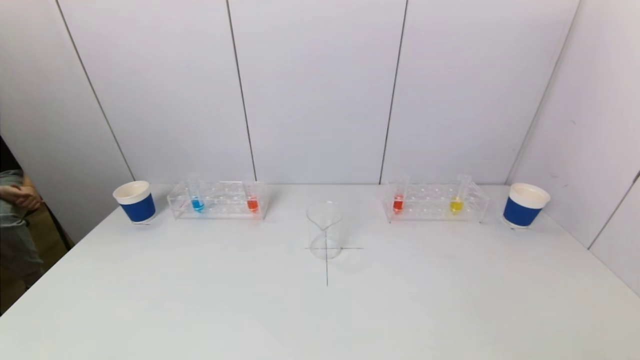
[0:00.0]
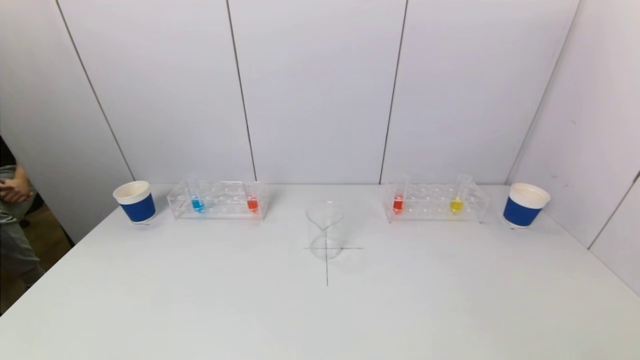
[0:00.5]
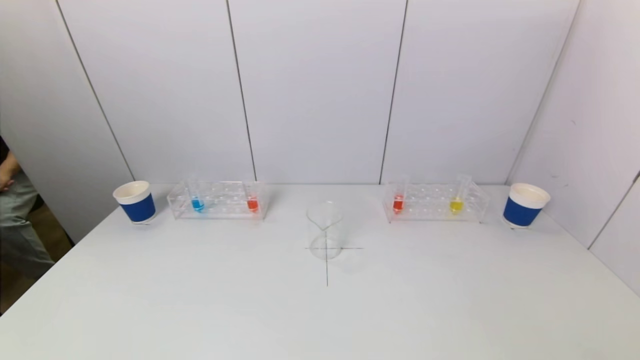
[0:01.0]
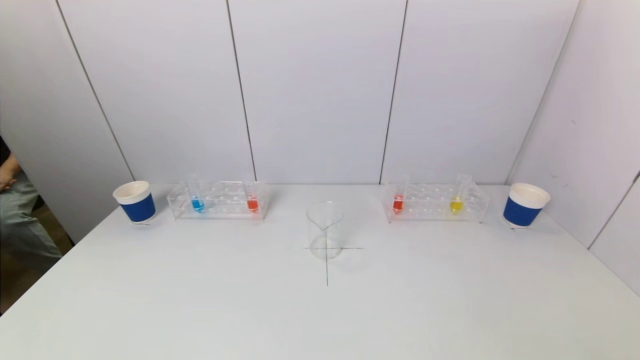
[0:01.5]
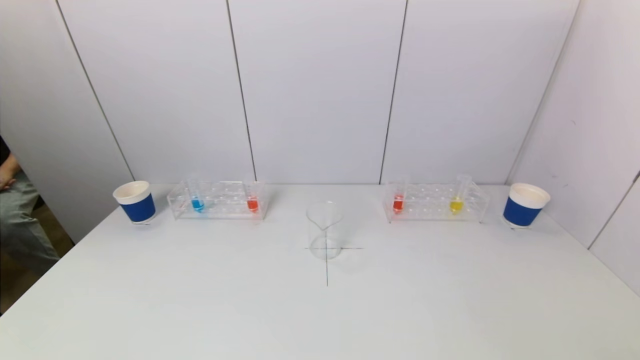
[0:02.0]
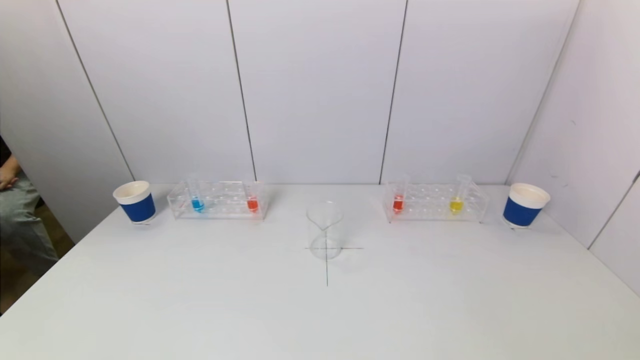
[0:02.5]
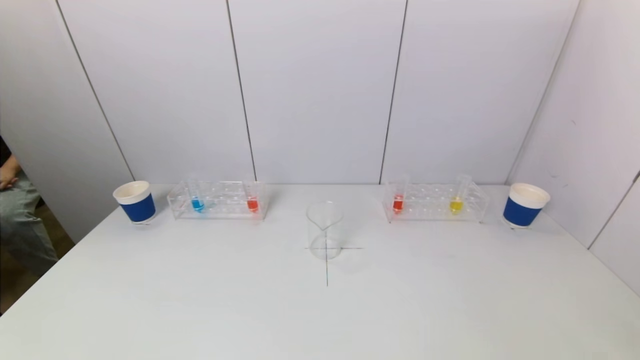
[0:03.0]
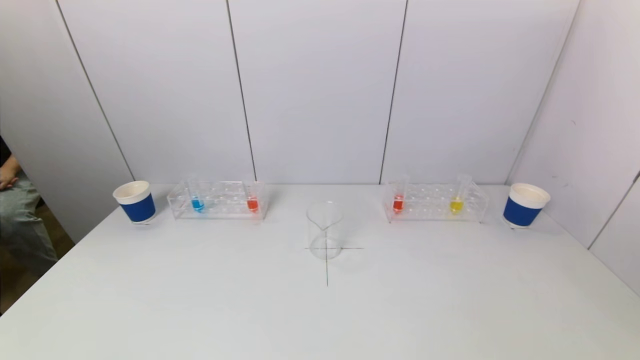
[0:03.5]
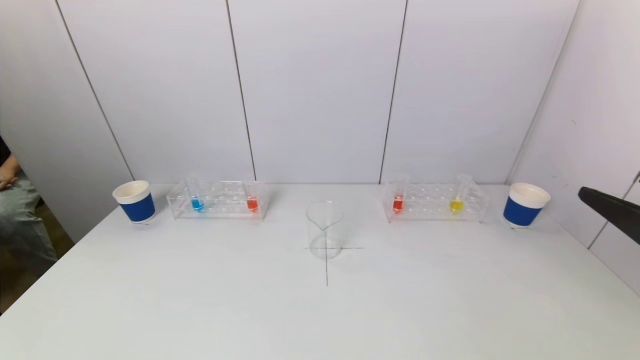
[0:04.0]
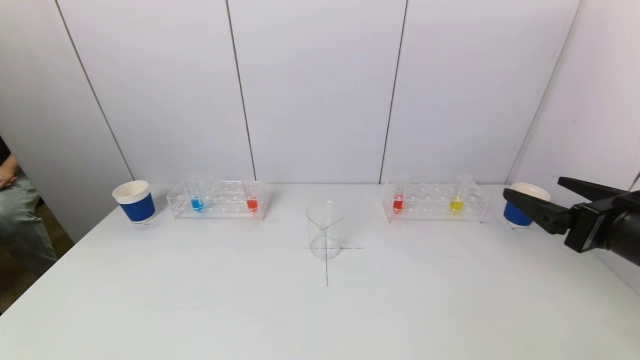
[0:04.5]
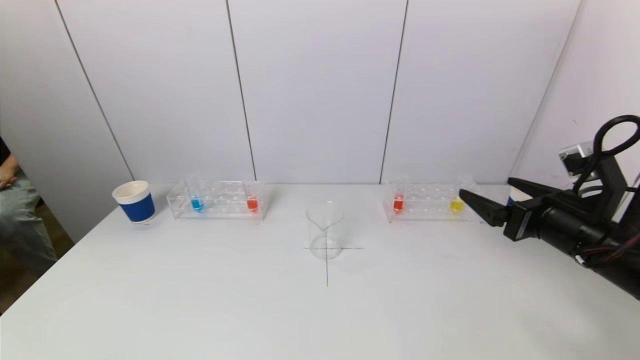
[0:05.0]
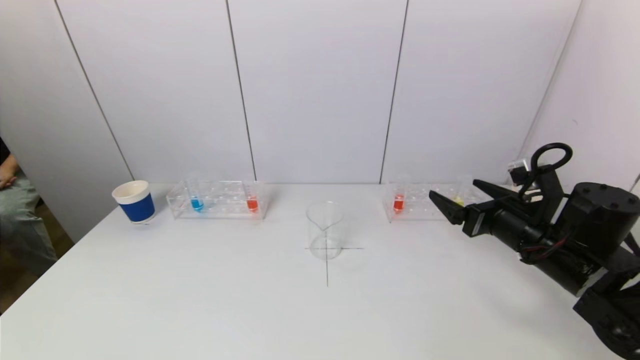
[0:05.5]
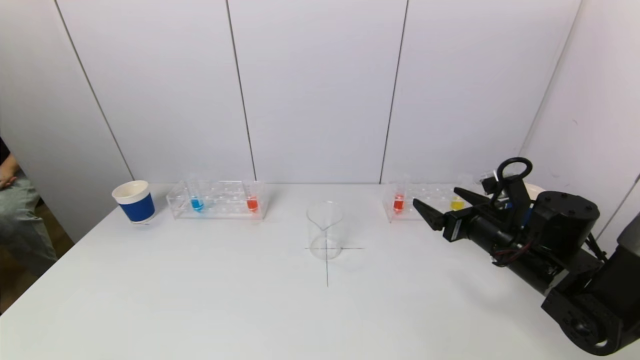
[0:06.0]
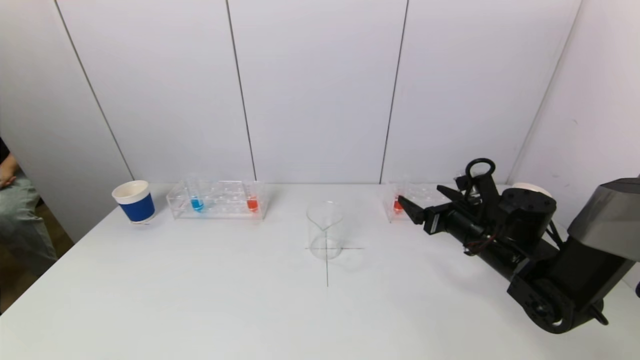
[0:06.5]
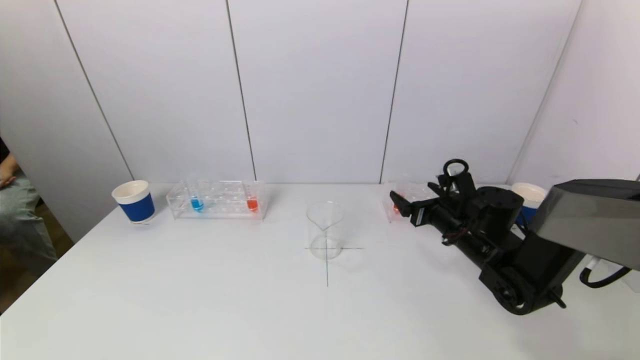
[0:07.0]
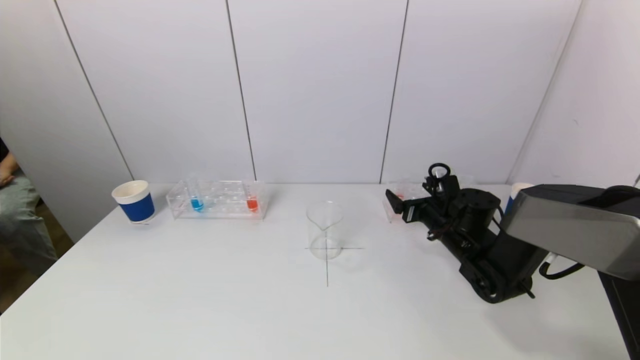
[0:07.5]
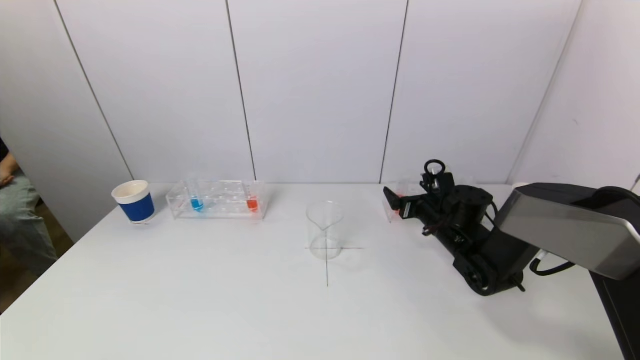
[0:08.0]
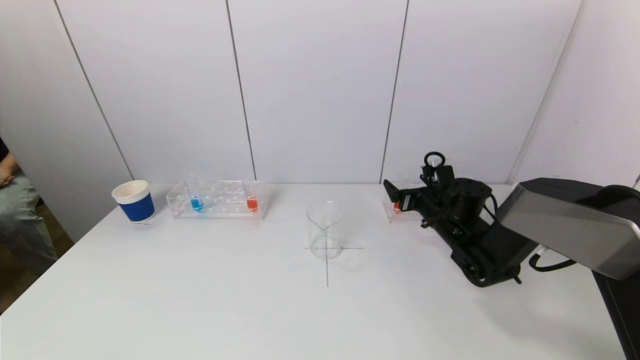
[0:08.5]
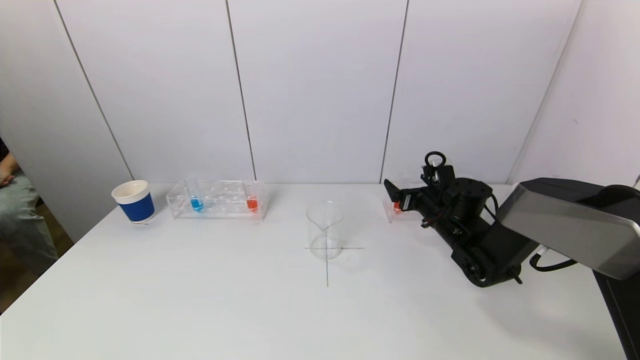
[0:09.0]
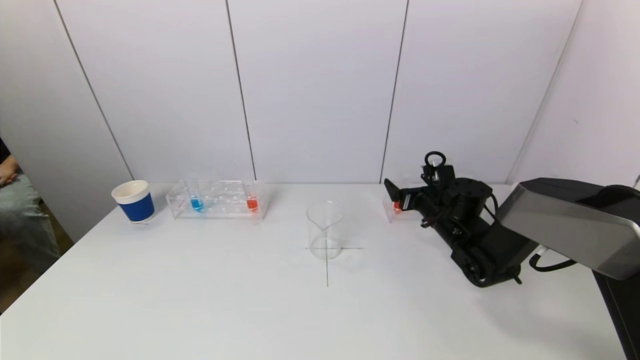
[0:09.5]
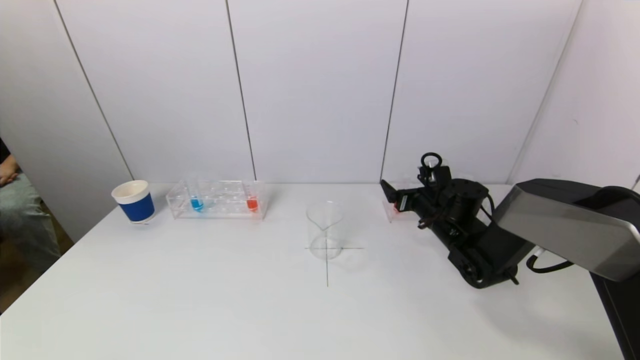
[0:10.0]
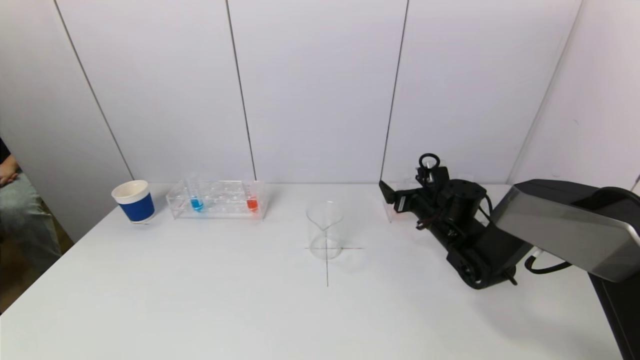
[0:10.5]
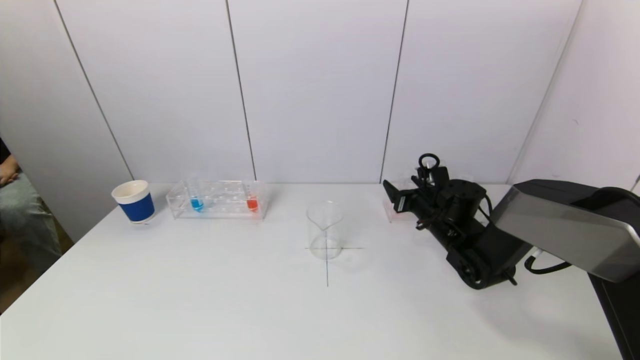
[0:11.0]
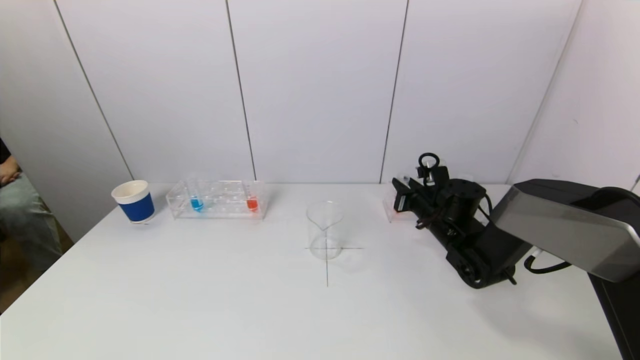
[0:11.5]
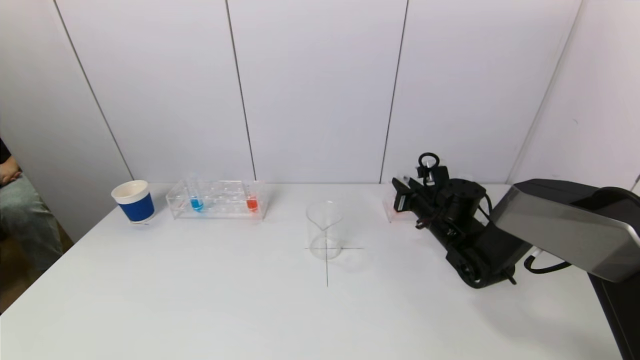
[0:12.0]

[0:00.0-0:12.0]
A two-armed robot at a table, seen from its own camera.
Task of the whole recording: pick up a test tube with pigment on left test tube rack and a test tube with pigment on right test tube rack by grippers and pour them into the beaker.
Step, 0:00.0 to 0:11.5: Grasp the red reagent with the right gripper.
0:02.0 to 0:04.0: The right gripper shifts approximately 20 cm forward and upward.
0:04.0 to 0:06.0: The right gripper moves forward and downward, approximately 25 cm.
0:06.0 to 0:08.0: The right gripper travels forward and downward by about 15 cm.
0:08.0 to 0:10.0: The grippers stay close to where they were, moving slightly.
0:10.0 to 0:12.0: The right gripper closes up.

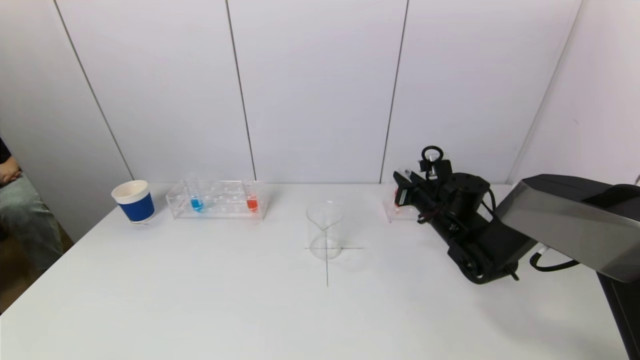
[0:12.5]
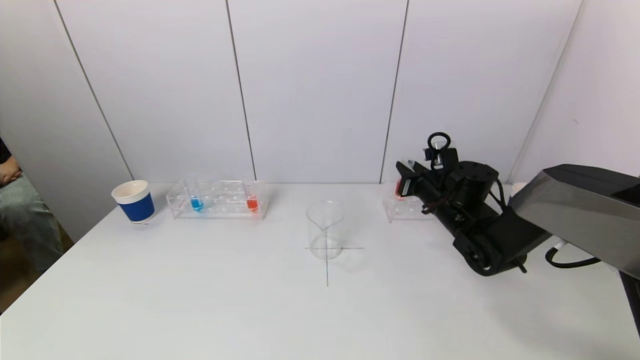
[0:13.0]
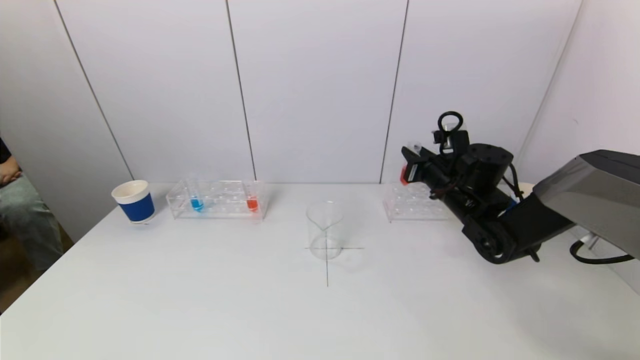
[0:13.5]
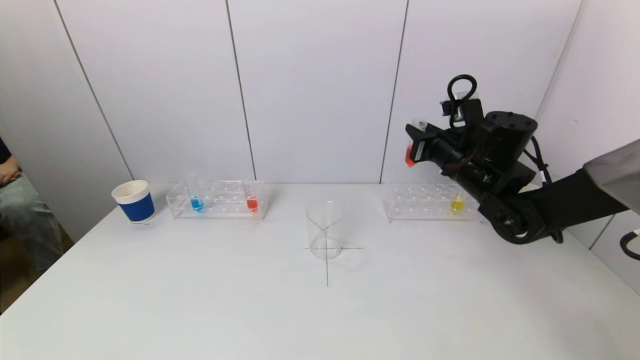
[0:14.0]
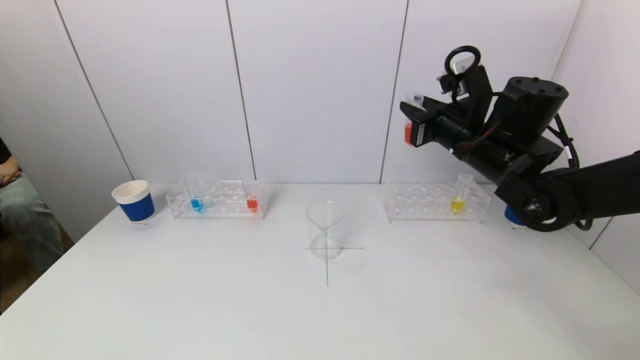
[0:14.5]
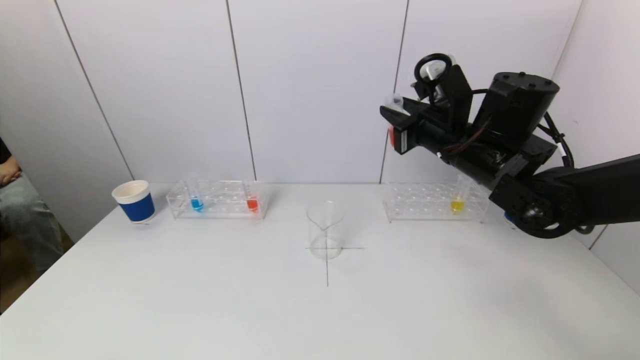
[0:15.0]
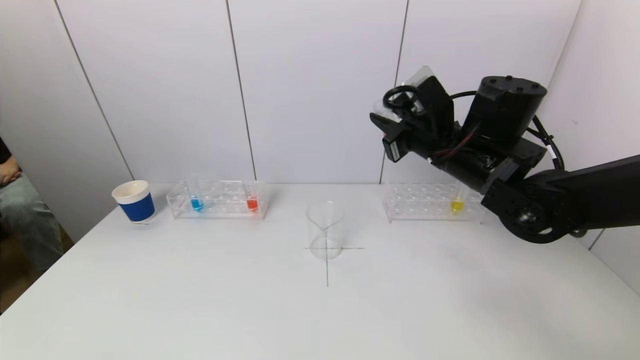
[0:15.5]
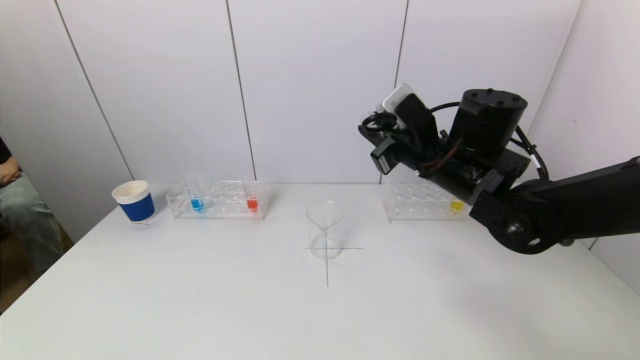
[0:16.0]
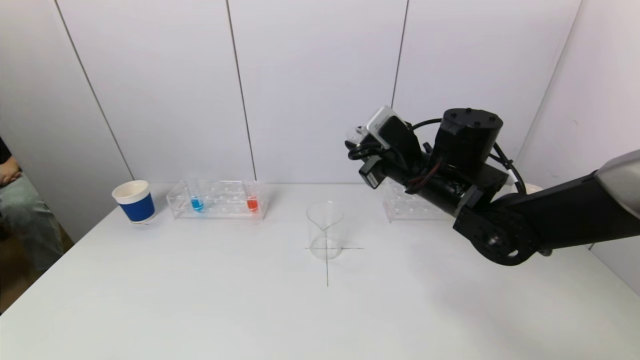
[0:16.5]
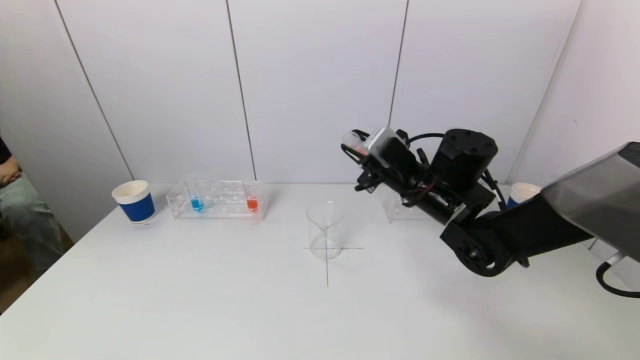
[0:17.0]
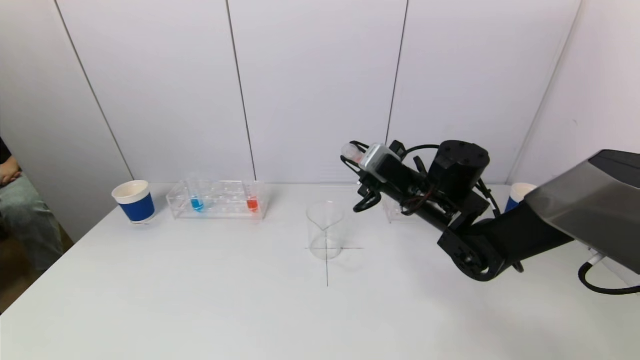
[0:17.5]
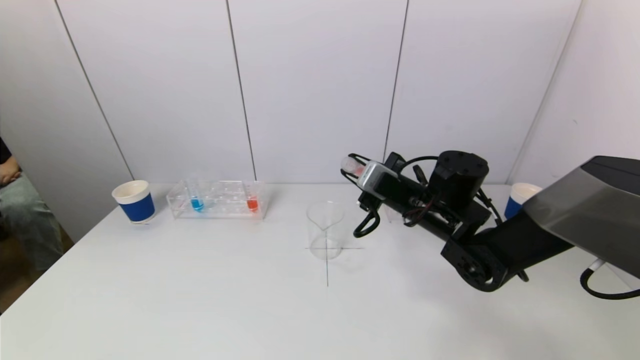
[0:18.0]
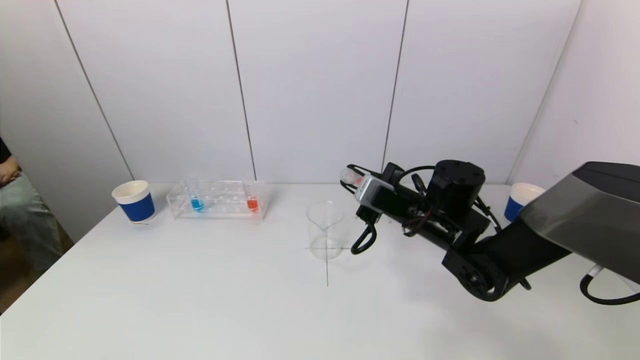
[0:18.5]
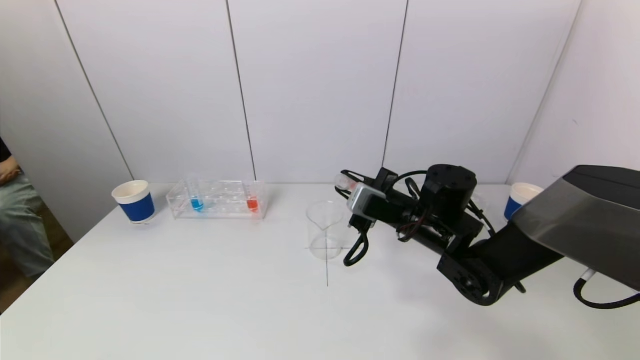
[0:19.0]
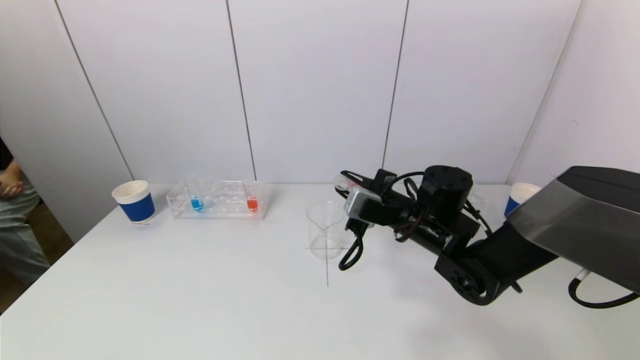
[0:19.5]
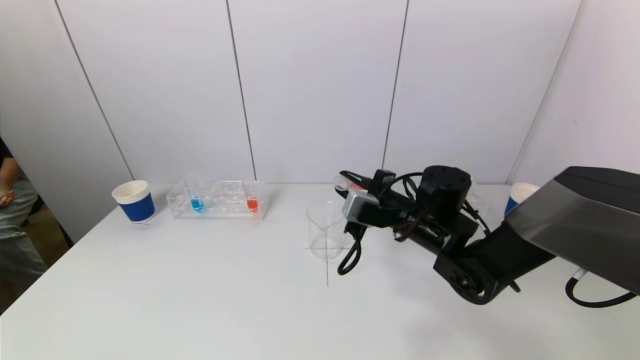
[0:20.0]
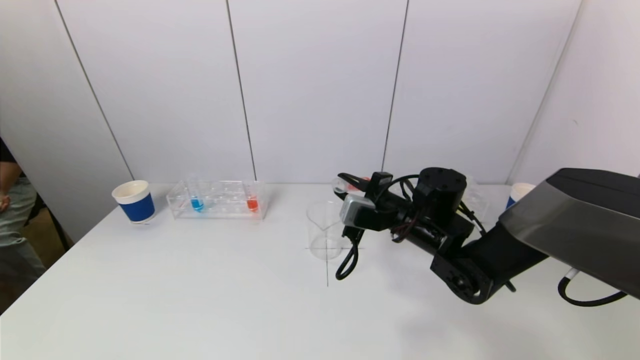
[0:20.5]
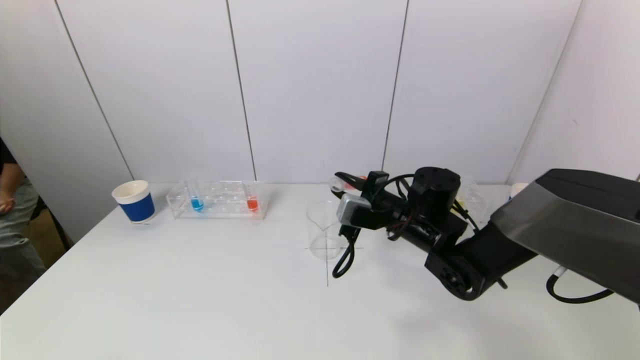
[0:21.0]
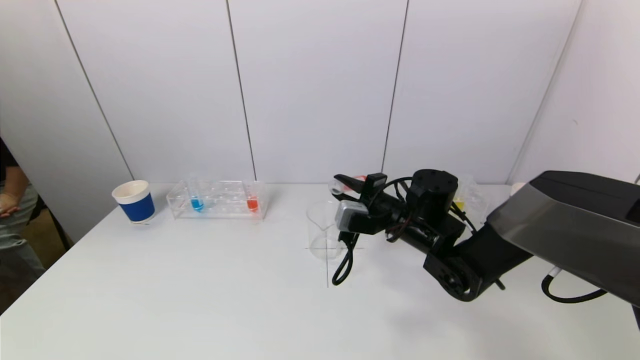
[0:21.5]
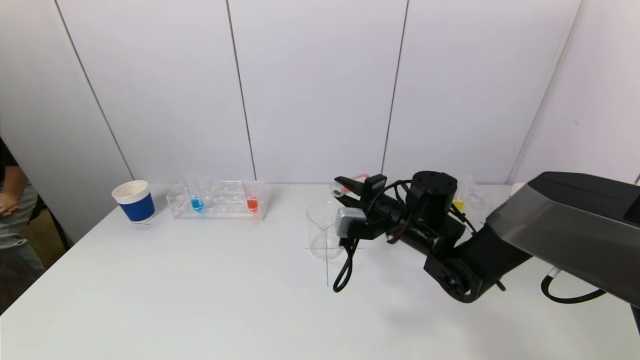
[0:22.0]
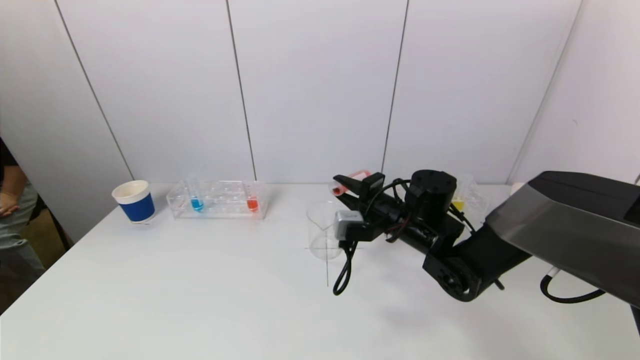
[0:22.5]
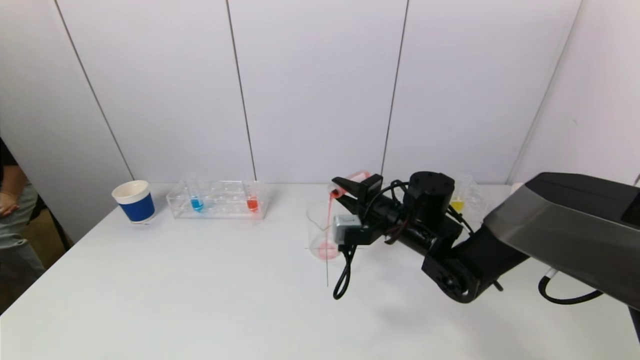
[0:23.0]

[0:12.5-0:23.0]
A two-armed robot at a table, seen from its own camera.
Task of the whole recording: pick up a test tube with pigment on left test tube rack and a test tube with pigment on right test tube rack by grippers and pour them into the beaker.
0:12.5 to 0:14.5: The right gripper is displaced upward by about 15 cm.
0:14.5 to 0:16.5: The right gripper moves to the left, some 5 cm.
0:16.5 to 0:19.0: The right gripper moves downward, some 10 cm.
0:19.0 to 0:21.0: The grippers make only small movements.
0:21.0 to 0:23.0: There are only small adjustments of the grippers.
